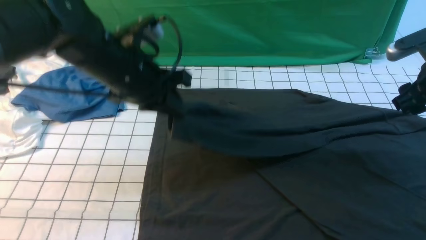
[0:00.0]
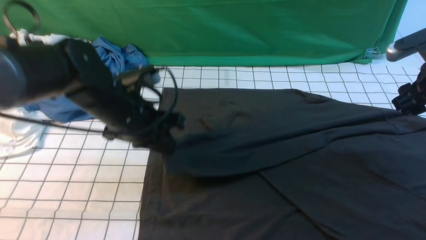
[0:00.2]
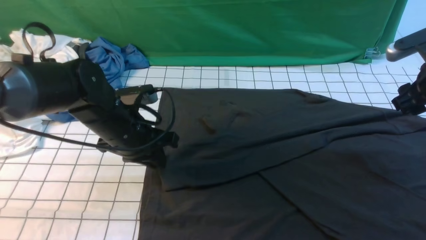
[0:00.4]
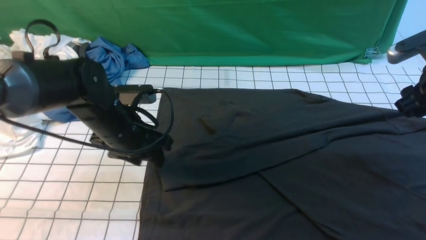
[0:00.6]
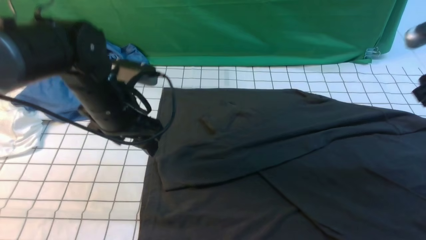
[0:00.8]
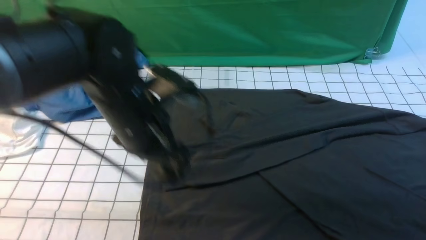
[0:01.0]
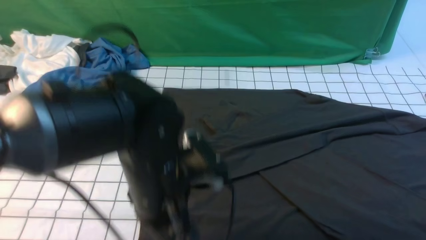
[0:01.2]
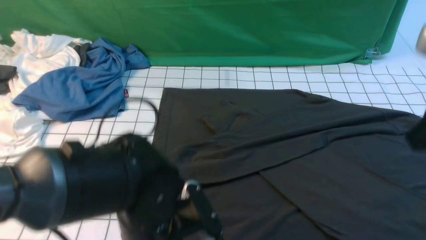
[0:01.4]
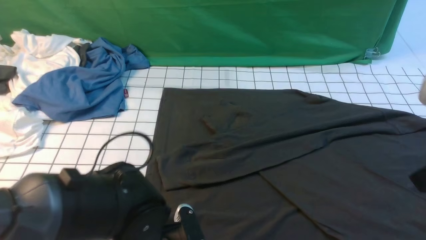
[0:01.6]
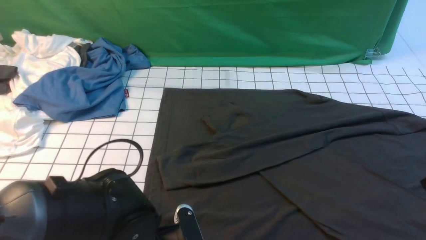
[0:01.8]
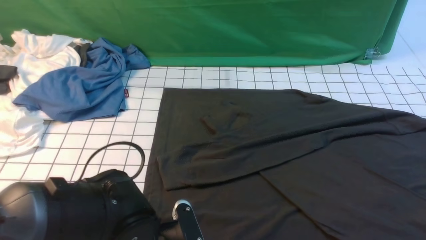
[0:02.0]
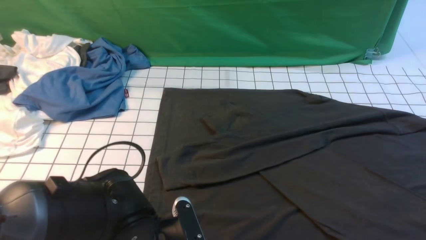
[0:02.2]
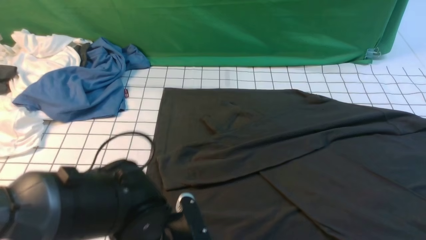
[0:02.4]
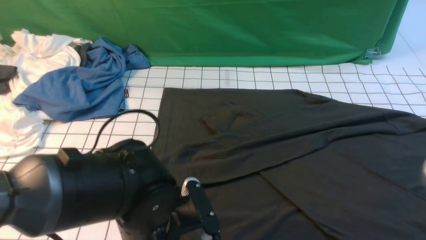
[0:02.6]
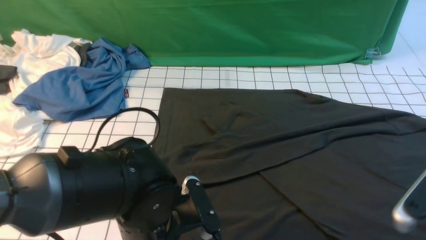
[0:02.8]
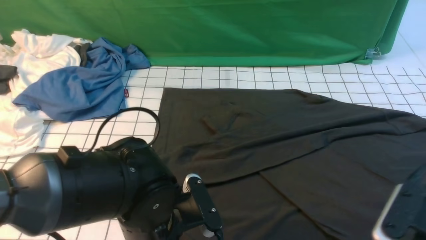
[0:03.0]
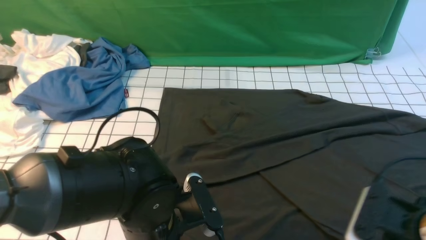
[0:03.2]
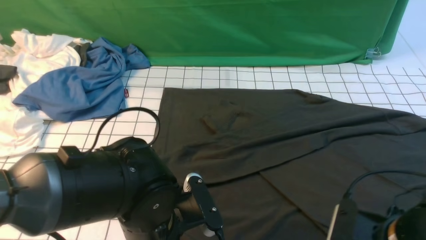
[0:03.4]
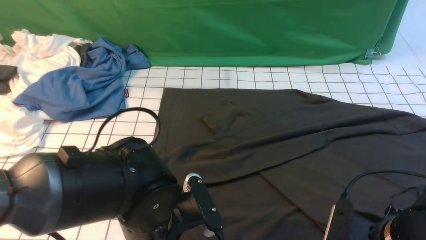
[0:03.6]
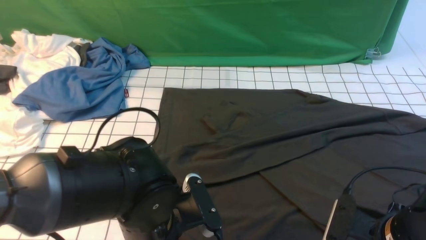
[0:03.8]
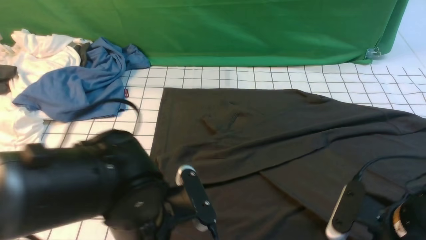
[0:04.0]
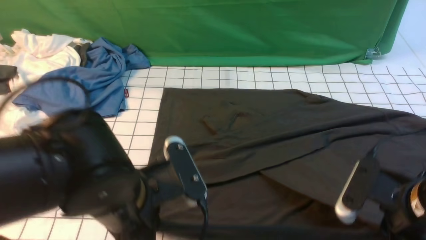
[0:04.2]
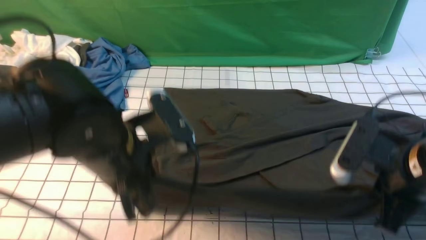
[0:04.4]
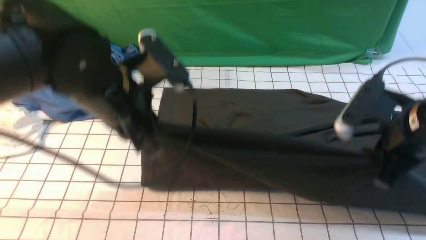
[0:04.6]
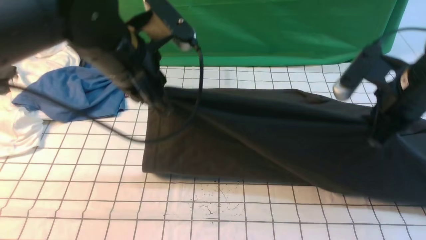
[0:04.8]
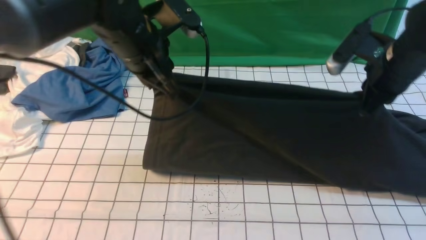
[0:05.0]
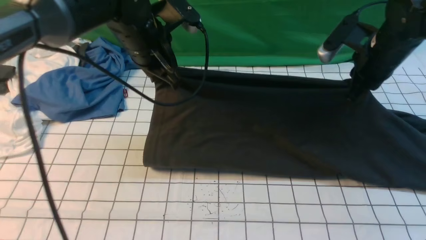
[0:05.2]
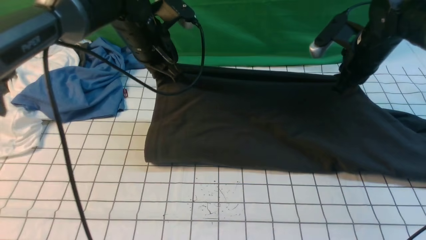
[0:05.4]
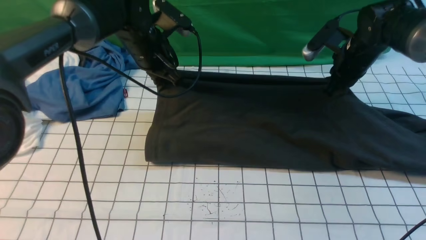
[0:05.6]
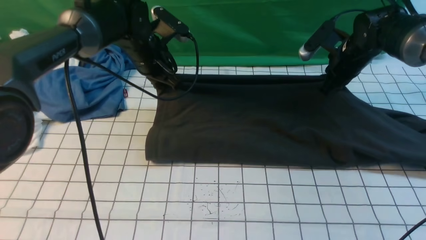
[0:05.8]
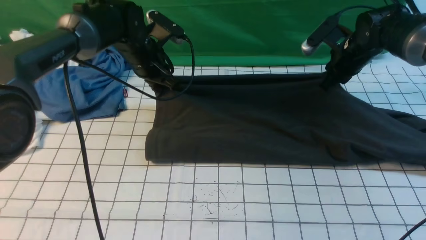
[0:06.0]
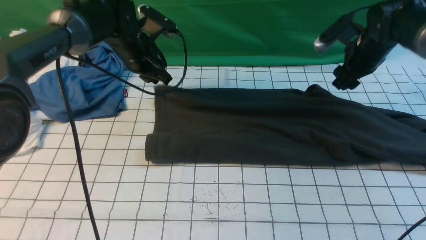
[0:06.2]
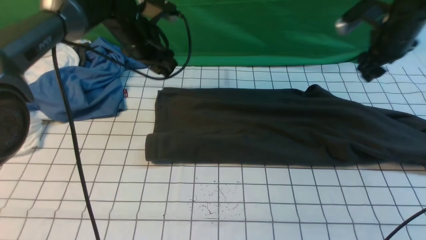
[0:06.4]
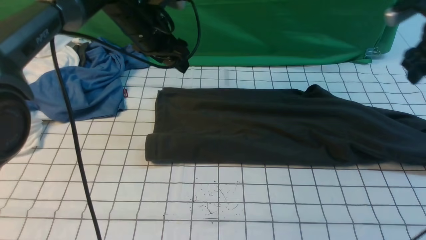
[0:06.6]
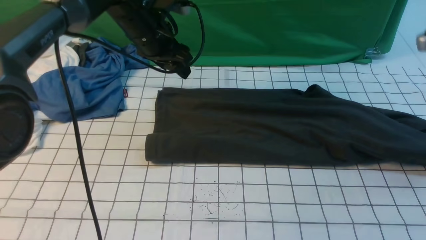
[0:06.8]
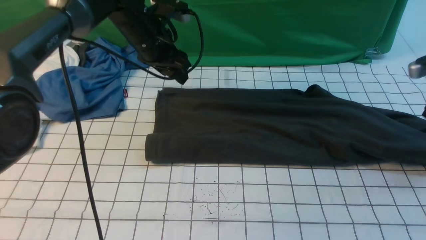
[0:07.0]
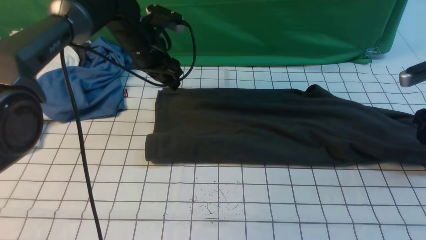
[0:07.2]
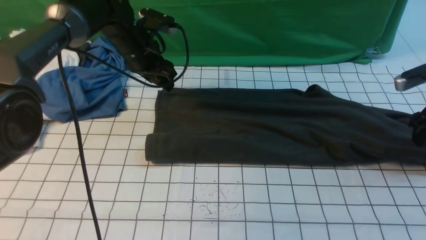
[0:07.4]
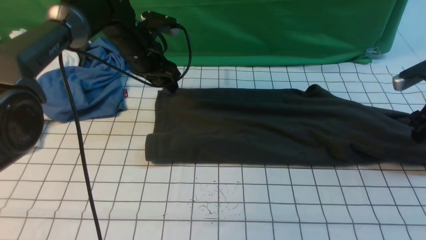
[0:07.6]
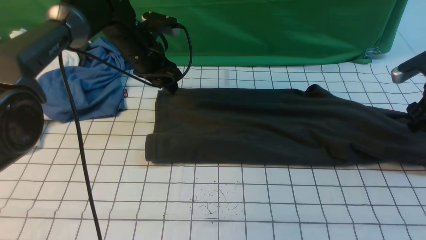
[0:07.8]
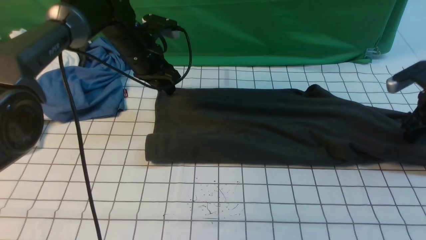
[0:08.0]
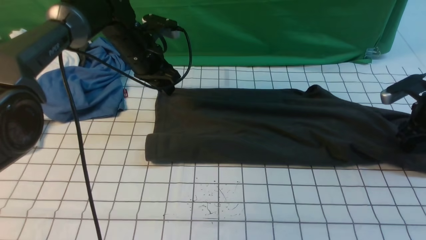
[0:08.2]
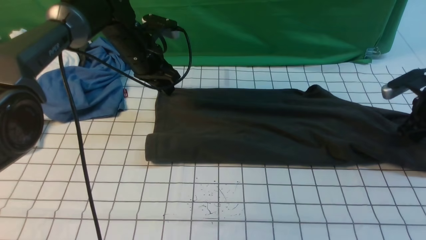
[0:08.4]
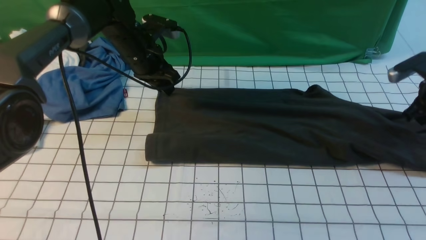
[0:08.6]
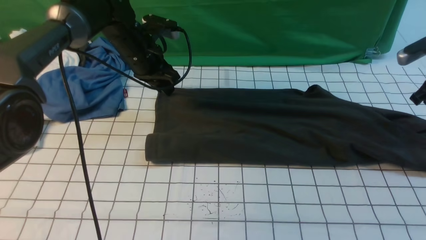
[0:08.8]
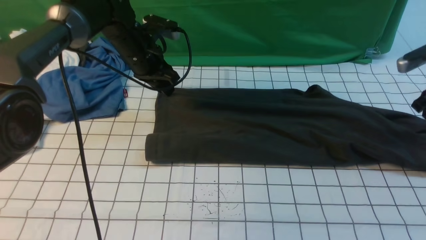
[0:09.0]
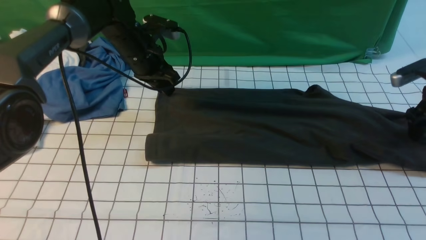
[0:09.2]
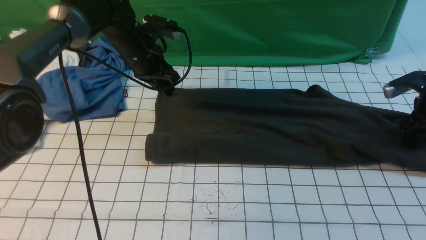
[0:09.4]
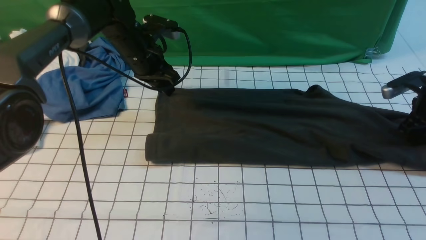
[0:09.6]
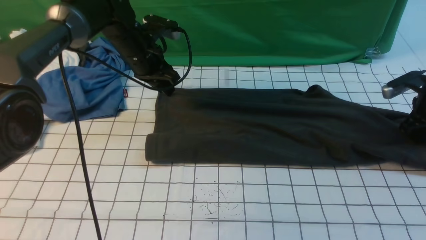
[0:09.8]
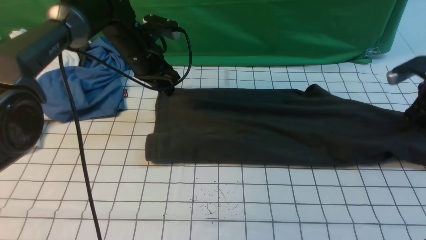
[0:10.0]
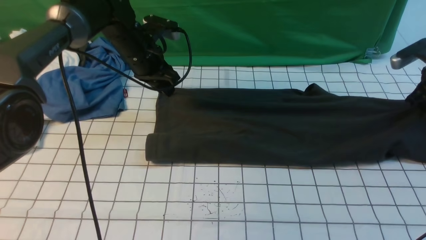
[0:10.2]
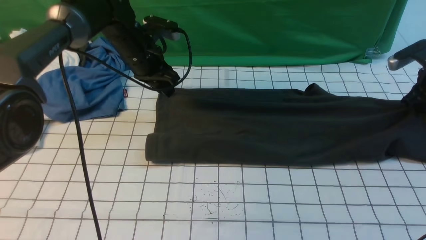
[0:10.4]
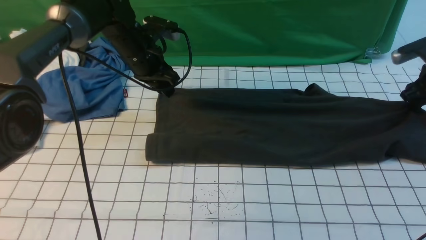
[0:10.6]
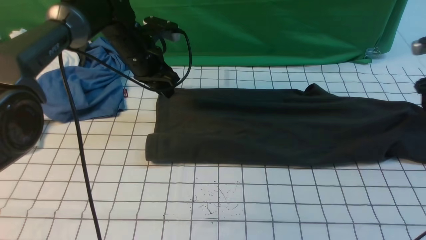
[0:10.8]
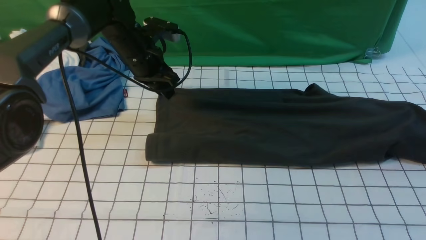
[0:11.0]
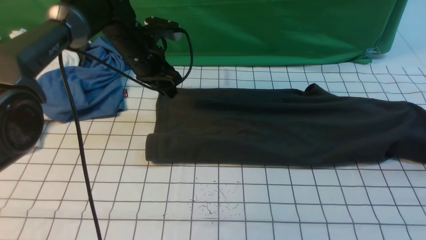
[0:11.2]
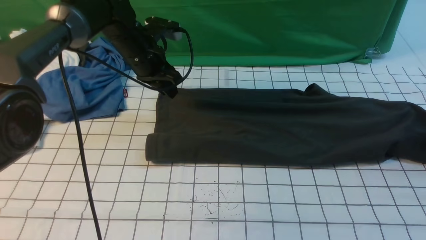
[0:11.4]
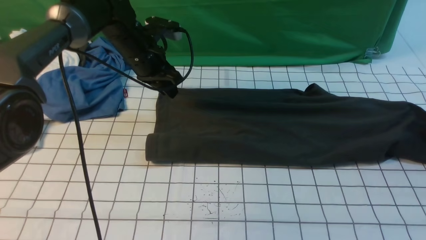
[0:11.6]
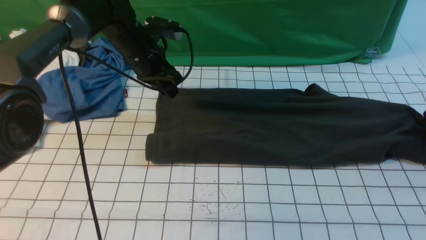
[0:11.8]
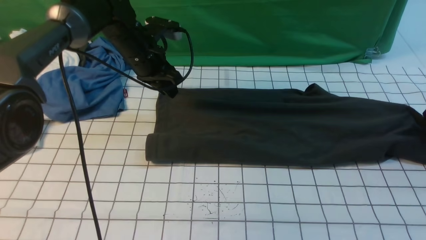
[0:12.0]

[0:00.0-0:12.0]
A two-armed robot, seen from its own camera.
Step, 0:00.8 to 0:04.2: use both arms simultaneously to clamp the lower edge of the clothing fabric.
Step, 0:04.4 to 0:06.6: use both arms to drag the lower edge of the fabric forward and fold it over the upper edge.
0:00.0 to 0:01.6: The left gripper goes about 20 cm backward and downward, and opens. The right gripper travels backward and upward by some 25 cm.
0:01.6 to 0:03.0: The right gripper moves downward, some 15 cm. Meanwhile the left gripper closes its fingers.
0:03.0 to 0:04.4: The right gripper heads forward, covering about 5 cm, and closes up, while the left gripper travels upward by some 10 cm.
0:04.4 to 0:06.0: The grippers both shift forward by some 25 cm. The right gripper opens.
0:06.0 to 0:07.6: The left gripper opens its fingers; the right gripper is displaced to the right and backward by about 15 cm, and opens.
0:07.6 to 0:09.0: The right gripper closes up.
0:09.0 to 0:10.4: The right gripper closes, then reopens.
0:10.4 to 0:12.0: The right gripper is displaced to the right by about 5 cm, and opens up.

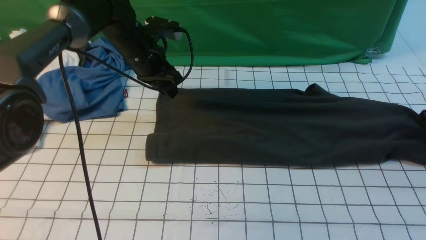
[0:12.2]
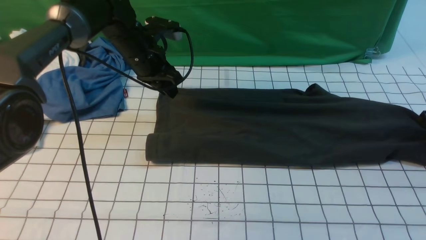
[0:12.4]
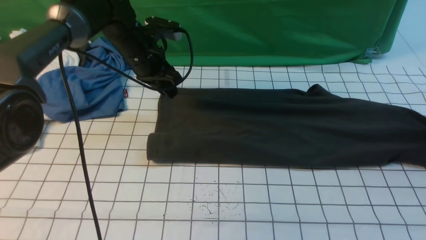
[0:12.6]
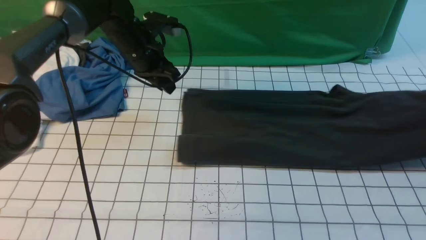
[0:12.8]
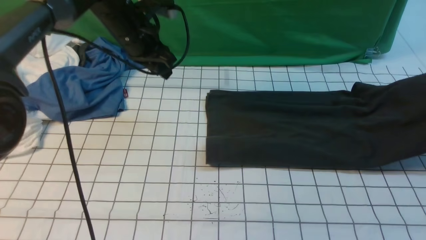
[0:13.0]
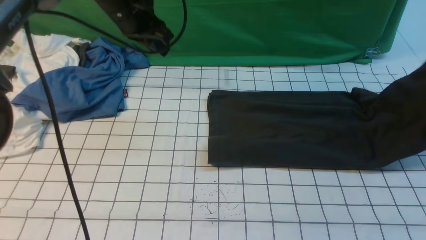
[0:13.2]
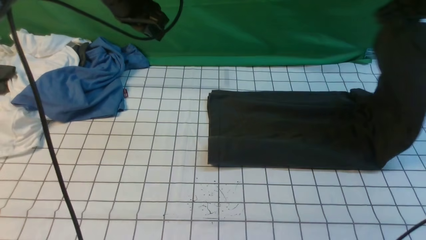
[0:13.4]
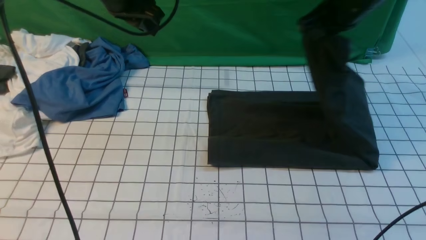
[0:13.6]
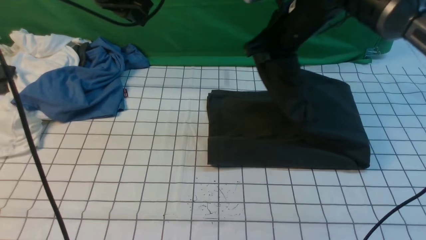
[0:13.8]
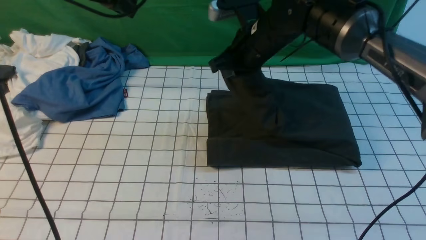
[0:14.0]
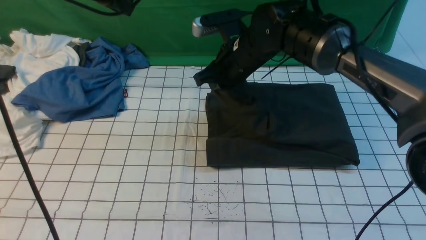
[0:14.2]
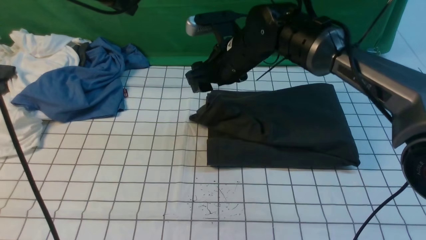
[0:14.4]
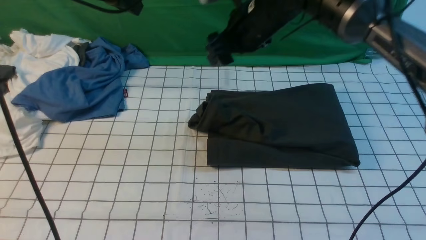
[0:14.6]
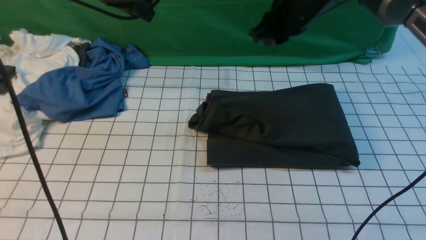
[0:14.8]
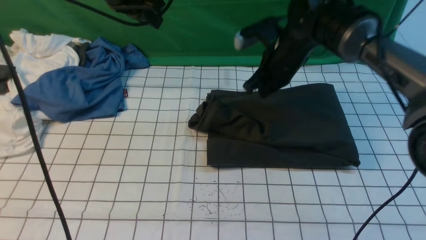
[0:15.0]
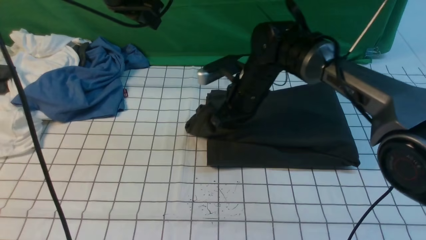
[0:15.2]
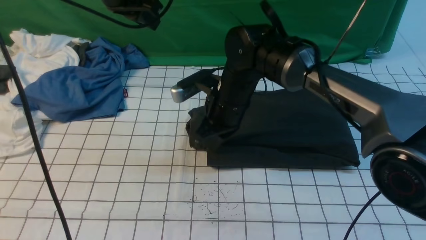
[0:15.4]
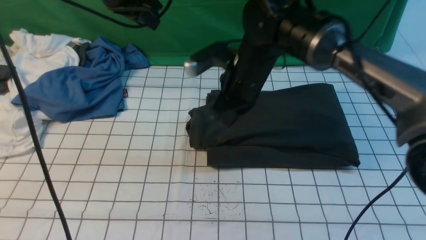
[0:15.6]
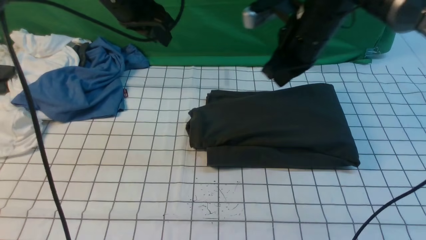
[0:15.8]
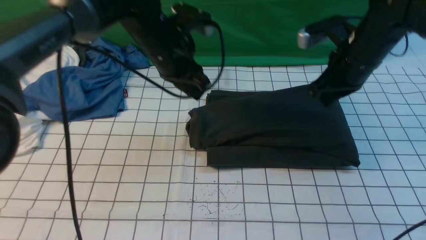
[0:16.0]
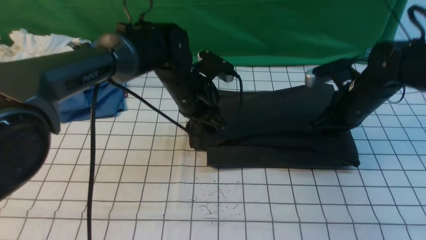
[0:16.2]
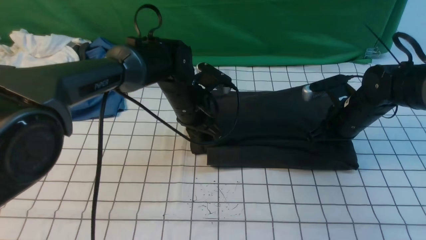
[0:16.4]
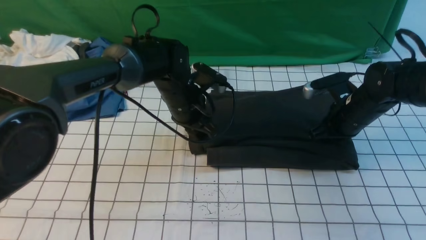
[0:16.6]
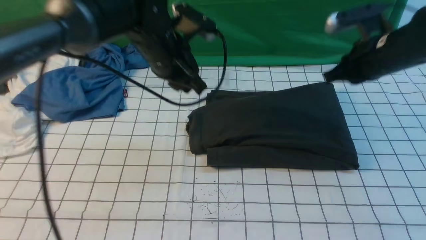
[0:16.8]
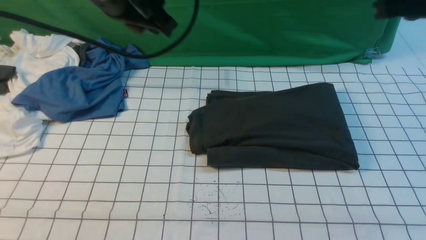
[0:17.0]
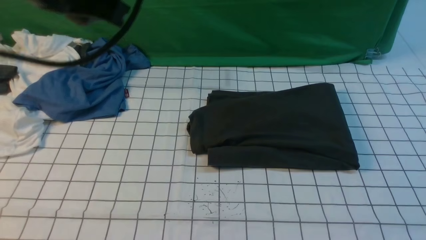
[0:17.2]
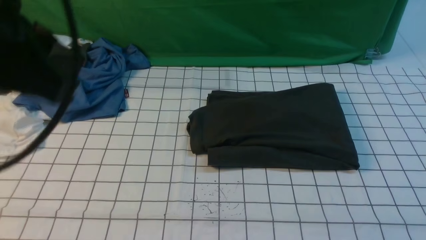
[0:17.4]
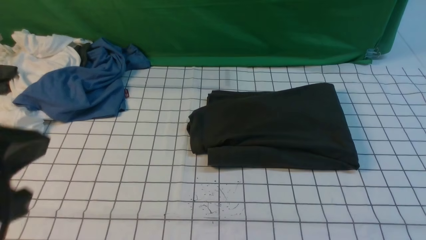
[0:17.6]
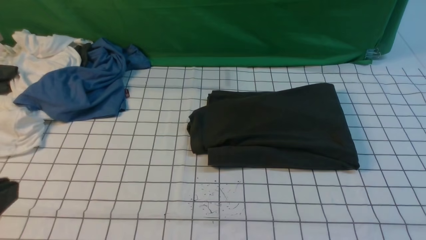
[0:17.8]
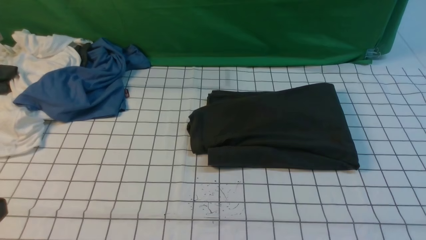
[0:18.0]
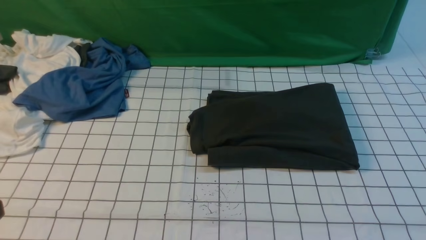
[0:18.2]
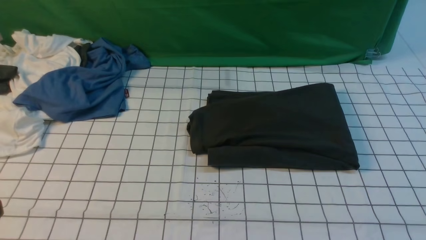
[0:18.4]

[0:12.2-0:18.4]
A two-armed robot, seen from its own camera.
Step, 0:13.0 to 0:14.4: use the right arm to drag the right edge of the fabric to the left and folds it over the left edge.
0:12.2 to 0:13.8: The left gripper shifts approximately 15 cm upward. Meanwhile the right gripper is displaced to the left and upward by roughly 40 cm.
0:13.8 to 0:15.4: The right gripper moves up and down over roughly 10 cm, changing direction 2 times, and opens, then closes again.
0:15.4 to 0:16.8: The right gripper travels to the right and upward by about 25 cm, while the left gripper goes about 10 cm to the right and backward, and goes downward and returns, about 20 cm each way.
0:16.8 to 0:18.4: The left gripper shifts approximately 40 cm backward and to the left. The right gripper moves backward, about 30 cm.
